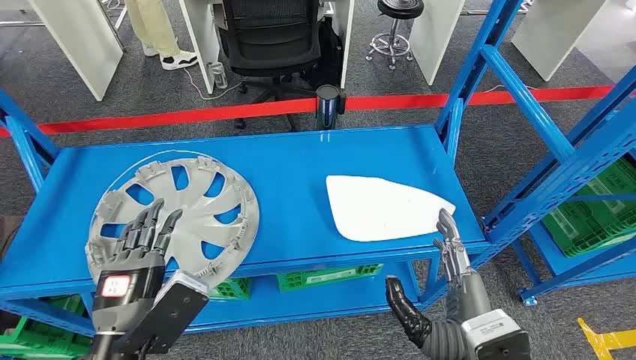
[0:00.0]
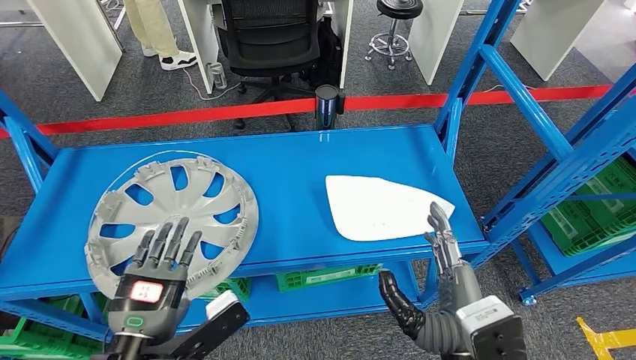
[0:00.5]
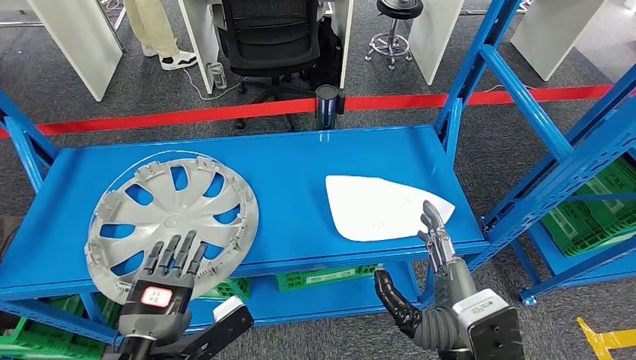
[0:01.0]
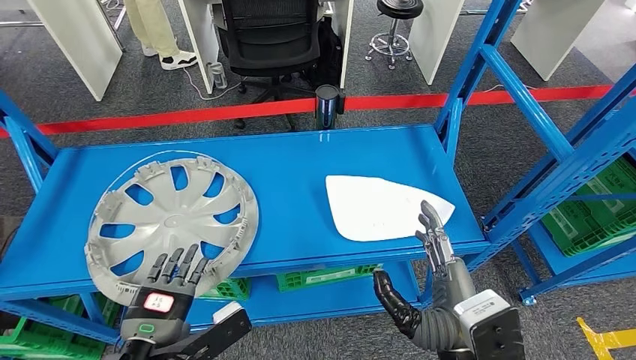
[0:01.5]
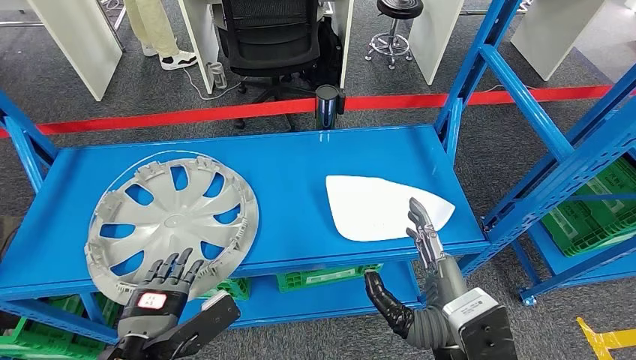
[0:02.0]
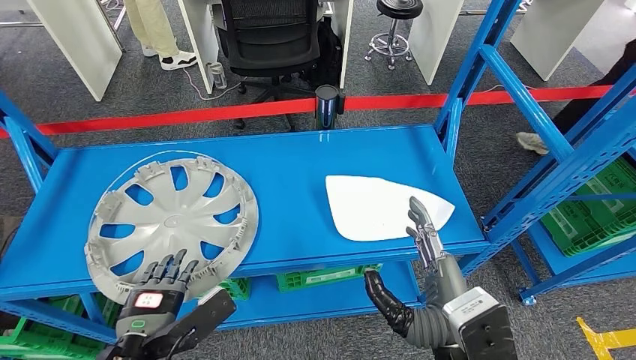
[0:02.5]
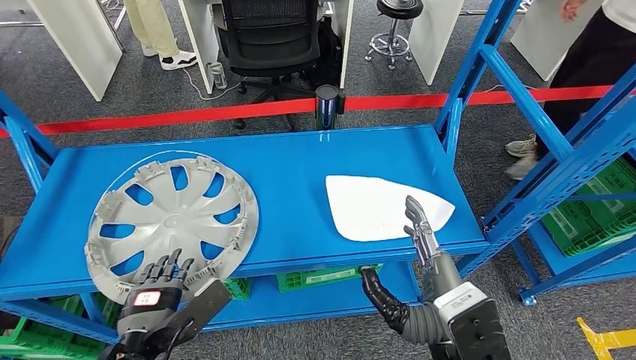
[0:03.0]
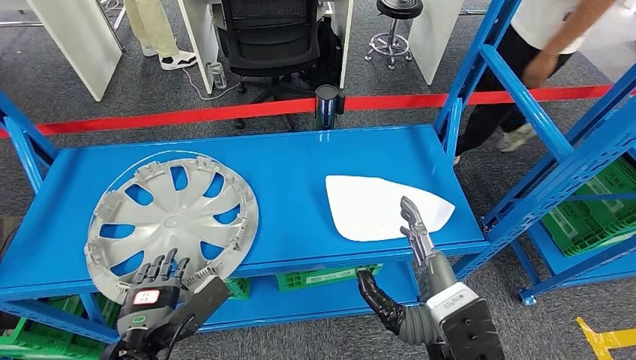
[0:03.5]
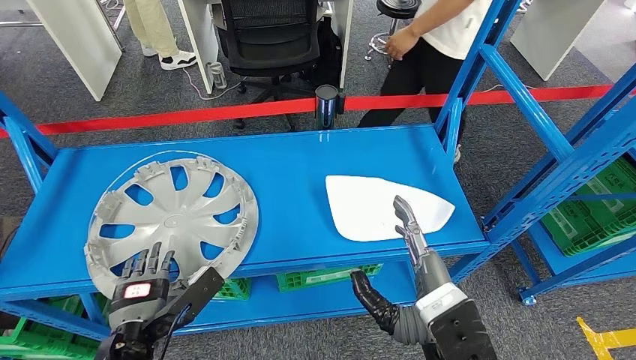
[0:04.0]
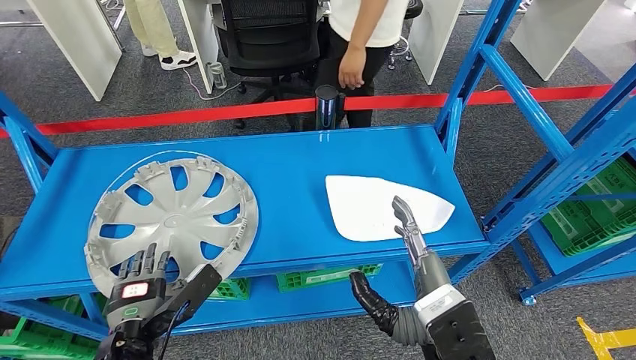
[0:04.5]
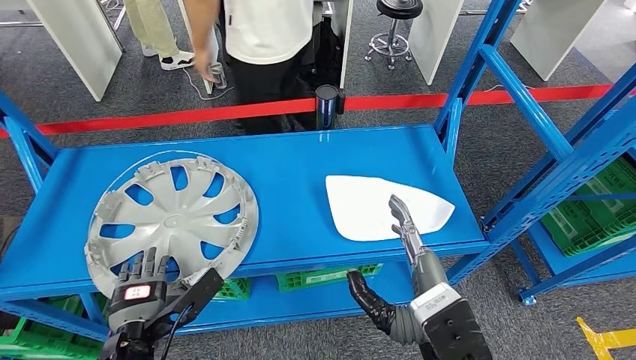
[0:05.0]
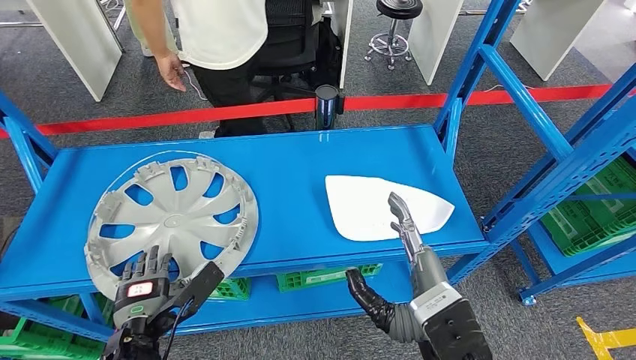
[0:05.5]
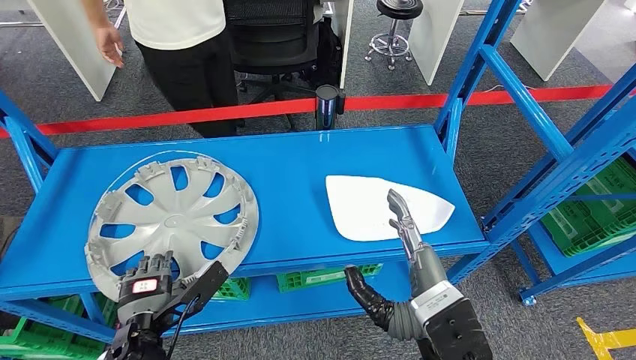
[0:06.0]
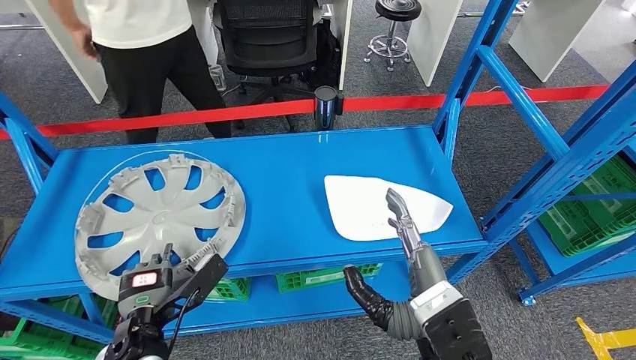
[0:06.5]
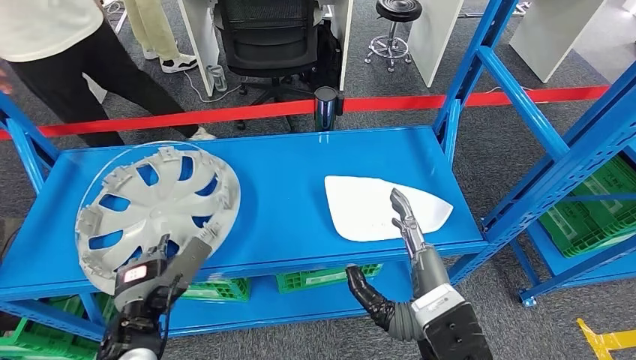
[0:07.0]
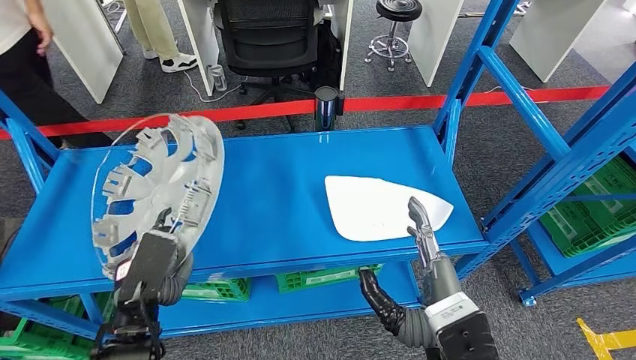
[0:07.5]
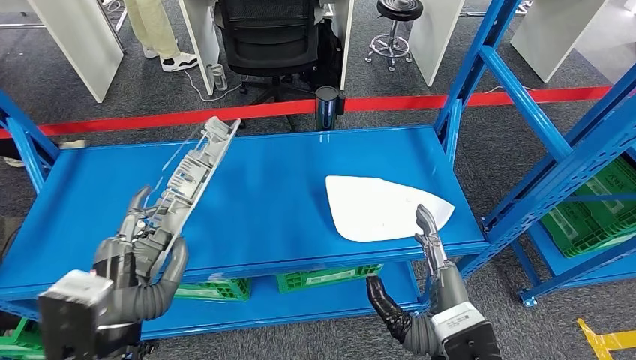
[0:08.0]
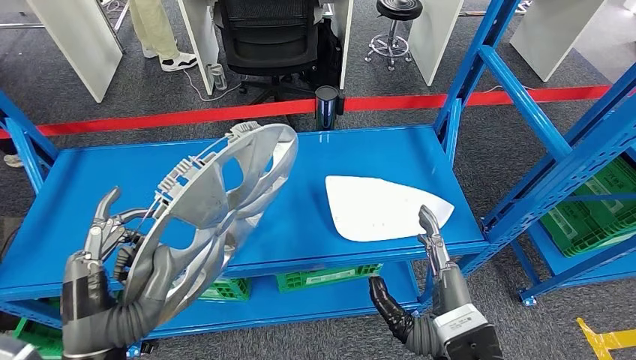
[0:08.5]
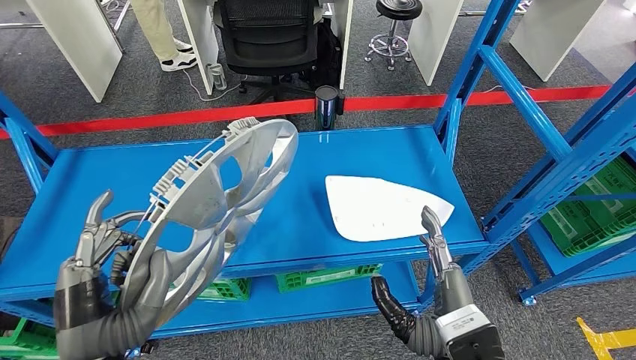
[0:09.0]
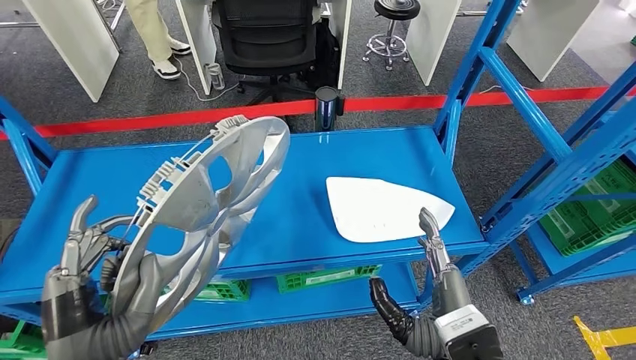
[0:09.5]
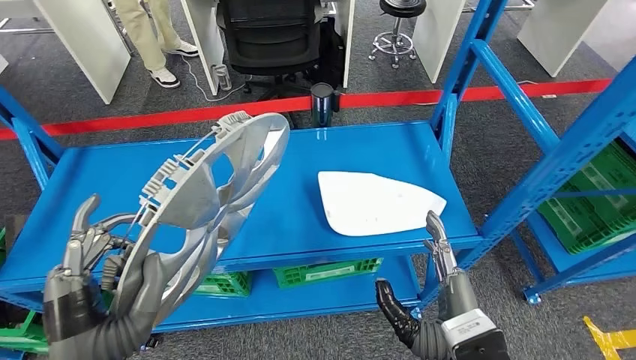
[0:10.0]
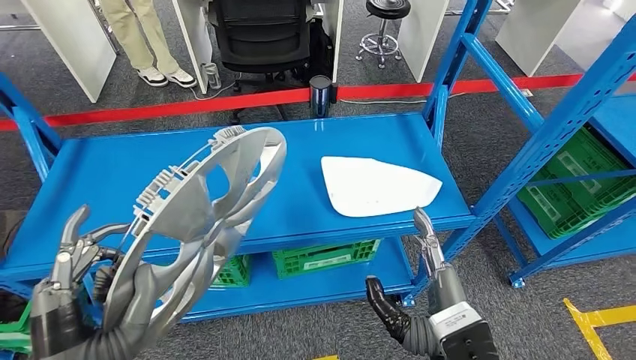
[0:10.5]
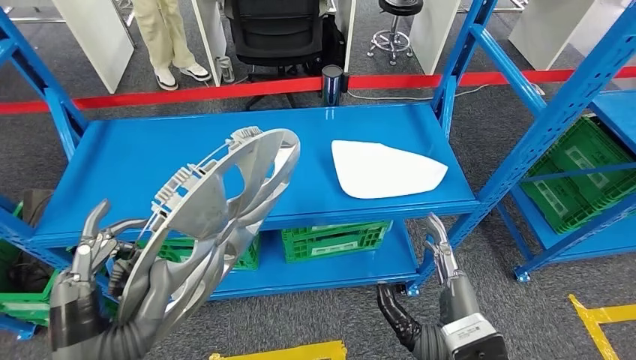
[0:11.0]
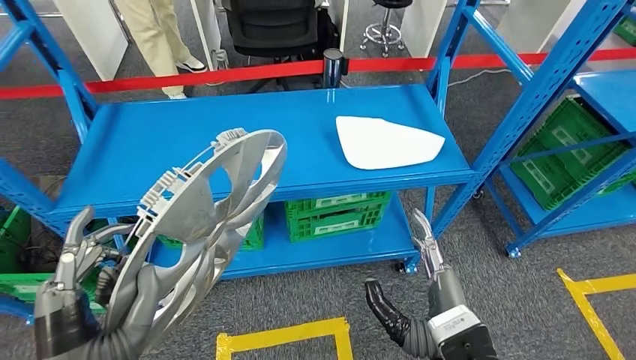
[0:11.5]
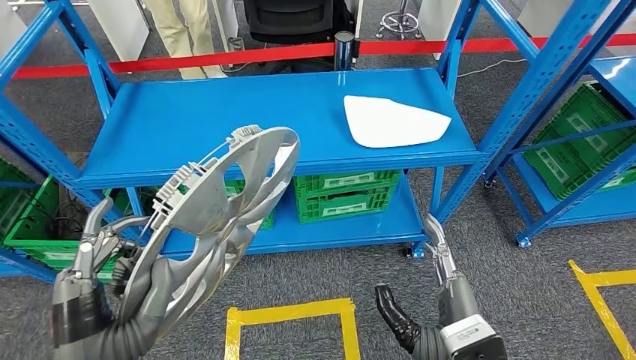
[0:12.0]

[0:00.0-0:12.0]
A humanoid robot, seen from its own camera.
Step, 0:00.0 to 0:09.0: Pick up the small component from the shelf.
0:02.0 to 0:04.0: The hands move only a little.
0:04.0 to 0:06.0: The hands move only a little.

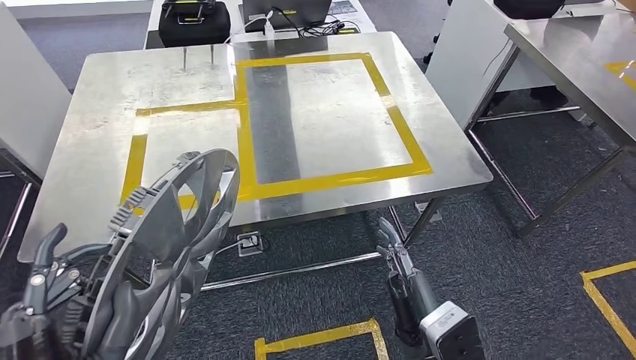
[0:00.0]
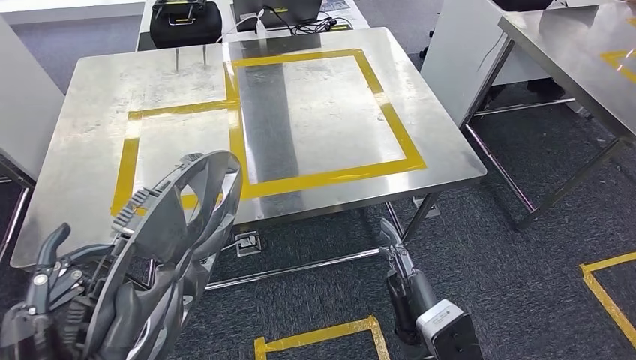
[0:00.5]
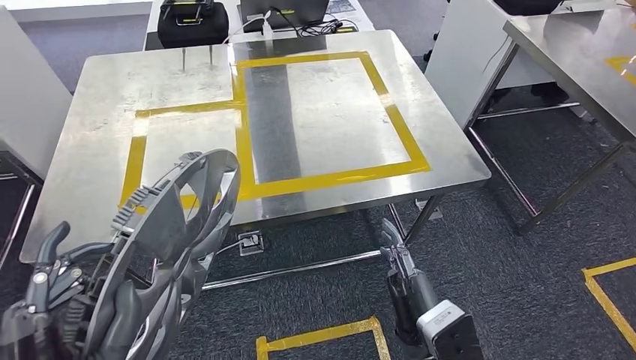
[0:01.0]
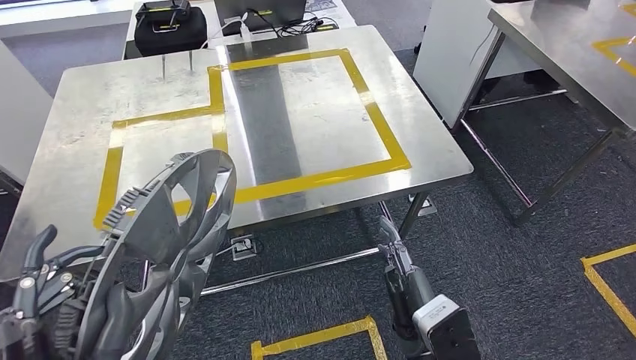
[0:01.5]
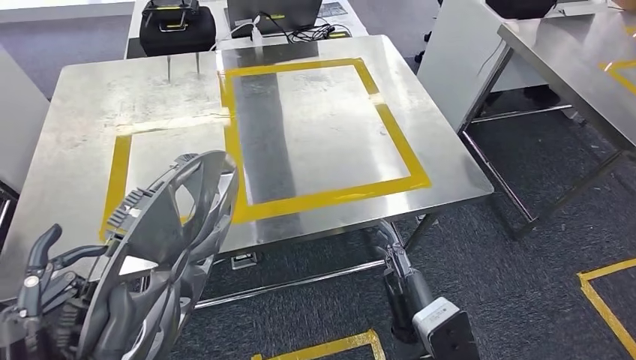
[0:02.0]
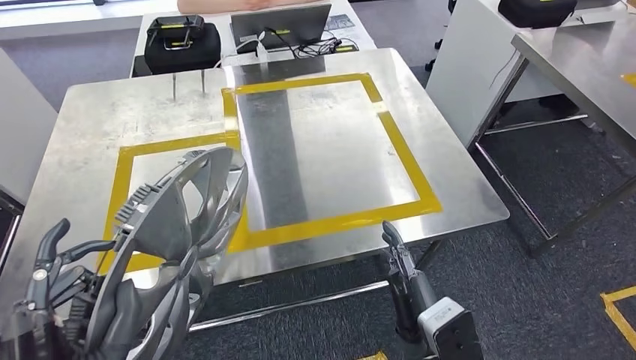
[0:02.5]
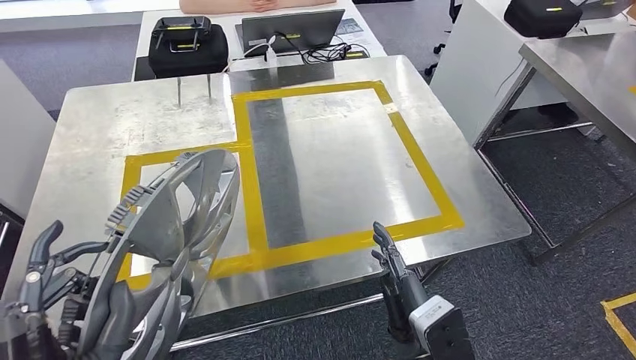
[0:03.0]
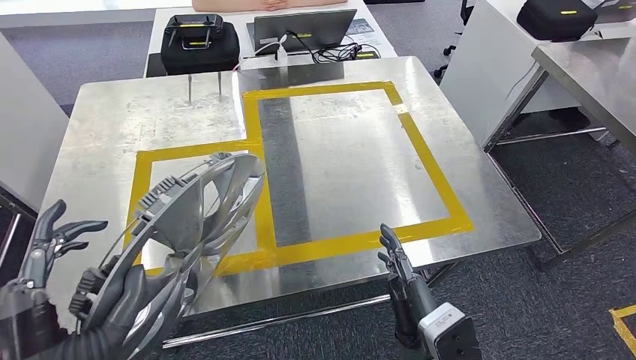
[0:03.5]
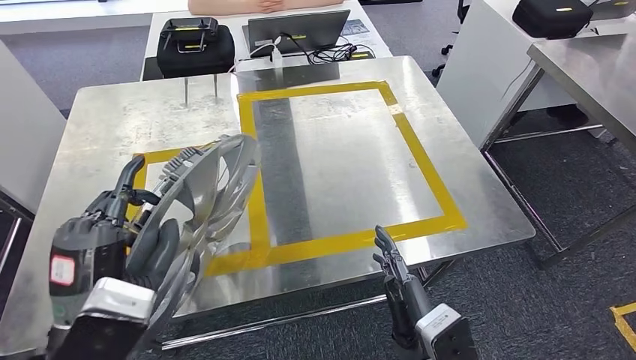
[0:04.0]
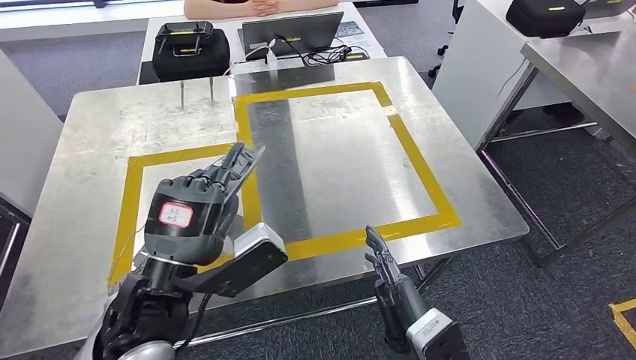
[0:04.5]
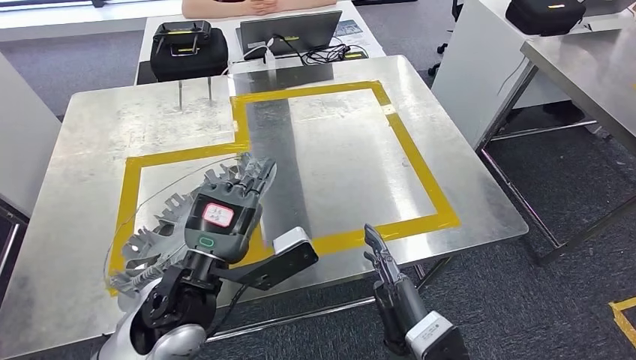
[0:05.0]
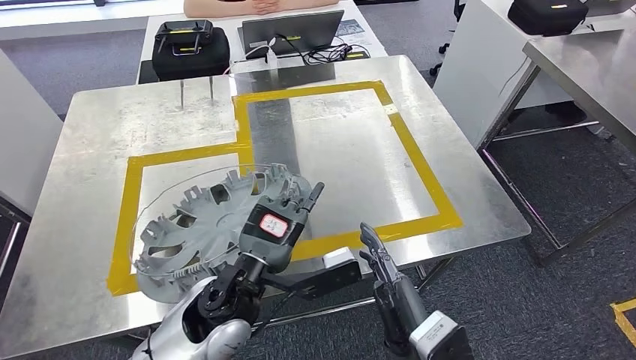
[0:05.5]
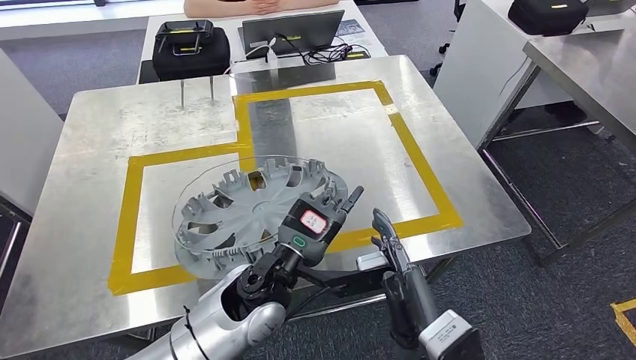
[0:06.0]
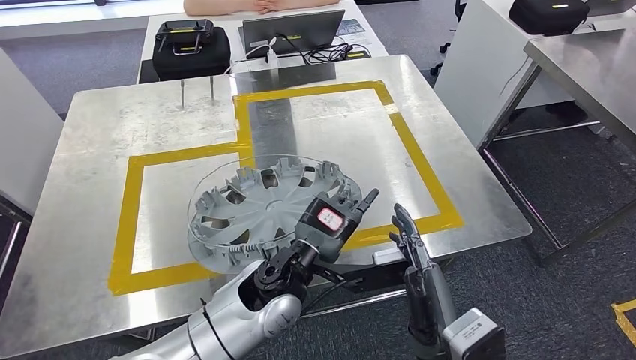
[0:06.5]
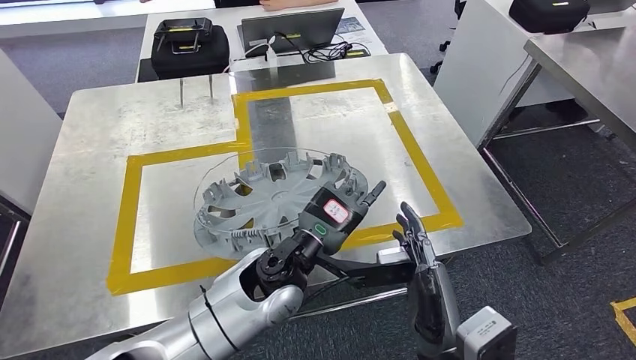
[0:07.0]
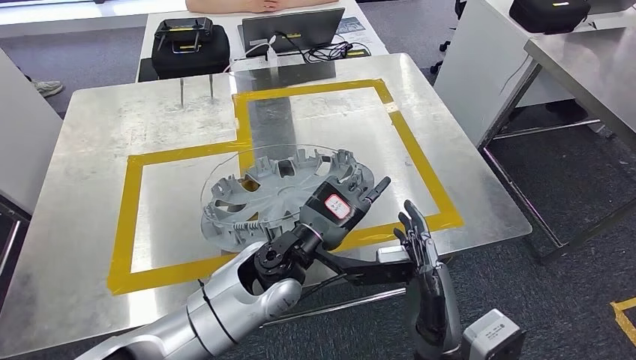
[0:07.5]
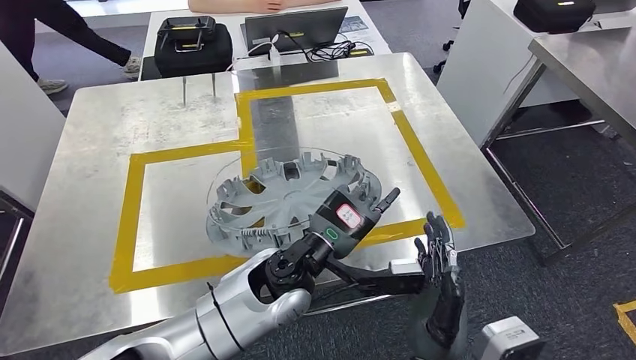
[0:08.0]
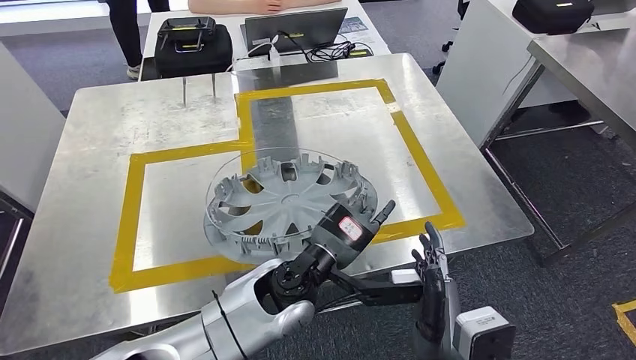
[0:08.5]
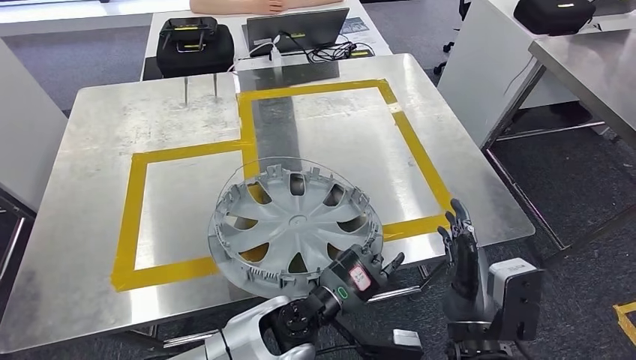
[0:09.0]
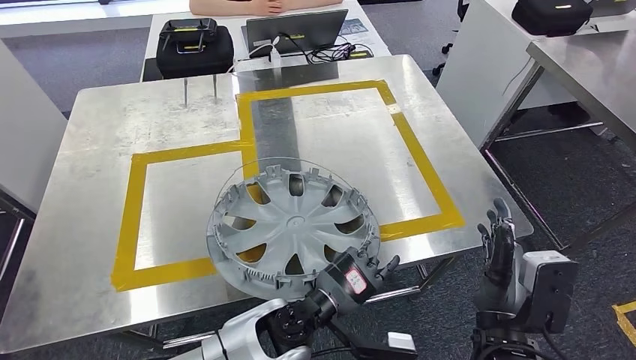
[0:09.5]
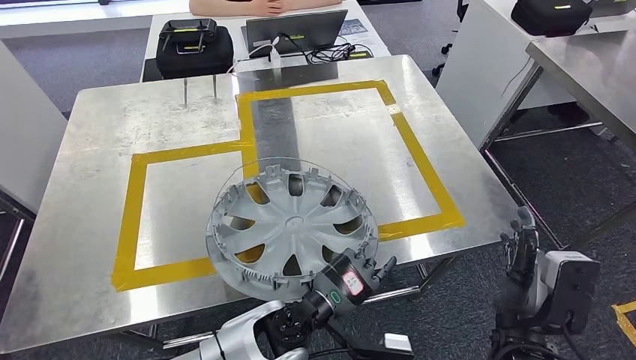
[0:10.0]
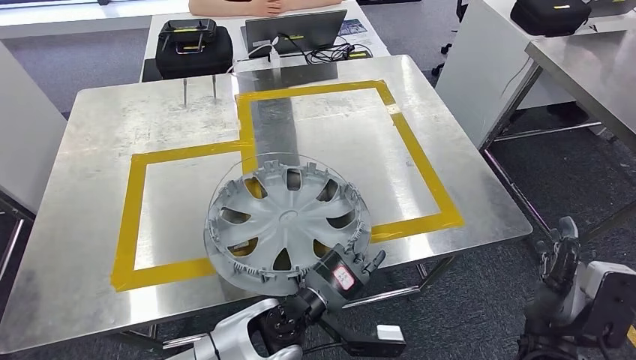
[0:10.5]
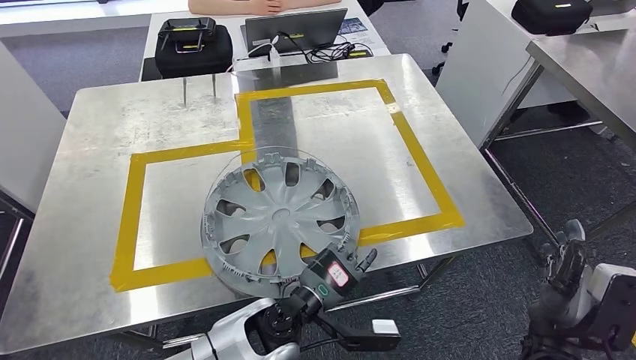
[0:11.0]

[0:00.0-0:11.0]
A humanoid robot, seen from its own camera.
Step, 0:00.0 to 0:02.5: Move the small component to the workbench.
0:09.0 to 0:11.0: The right hand goes some 10 cm to the right.
